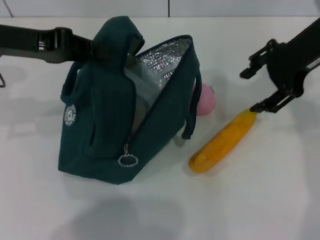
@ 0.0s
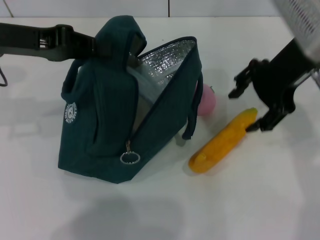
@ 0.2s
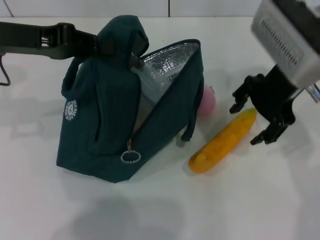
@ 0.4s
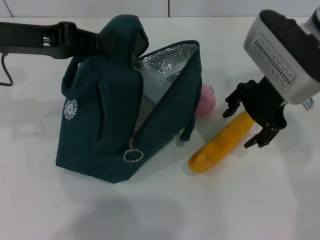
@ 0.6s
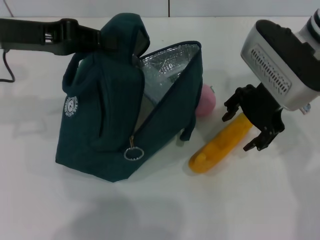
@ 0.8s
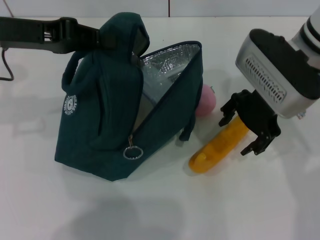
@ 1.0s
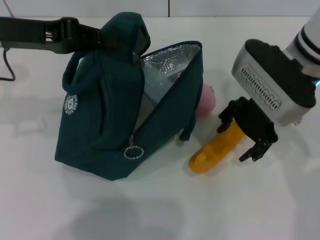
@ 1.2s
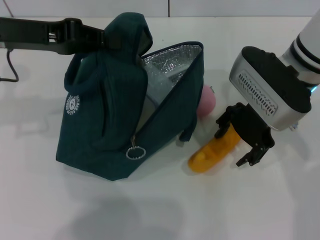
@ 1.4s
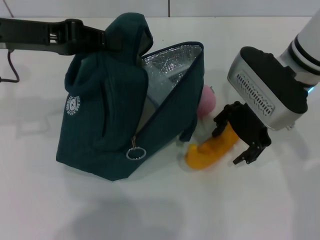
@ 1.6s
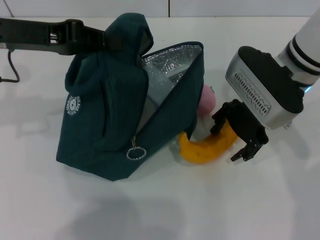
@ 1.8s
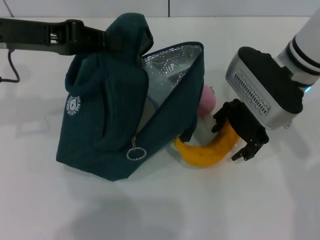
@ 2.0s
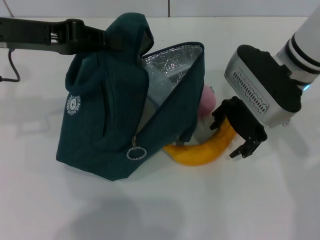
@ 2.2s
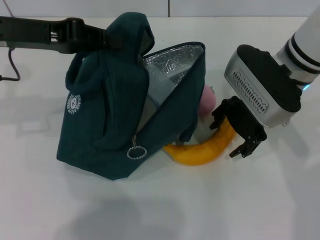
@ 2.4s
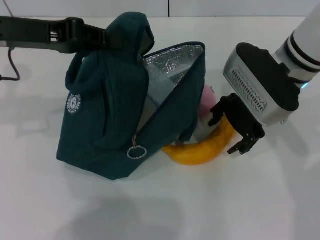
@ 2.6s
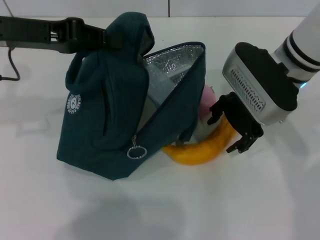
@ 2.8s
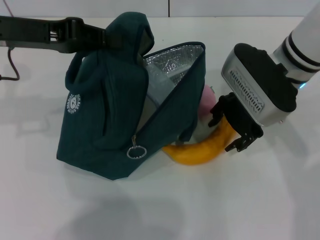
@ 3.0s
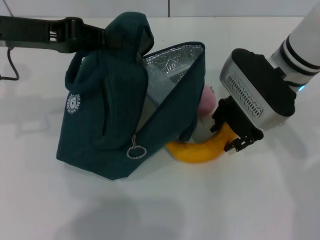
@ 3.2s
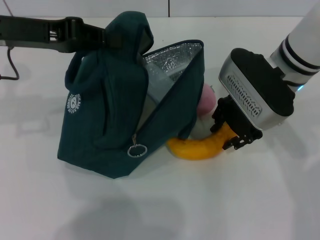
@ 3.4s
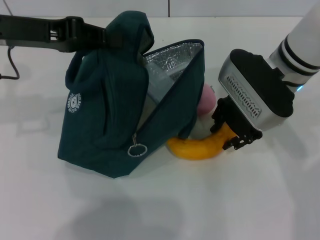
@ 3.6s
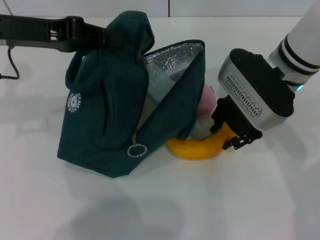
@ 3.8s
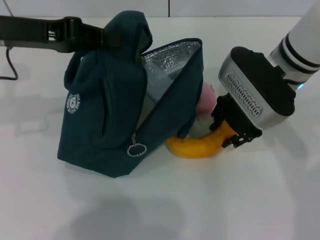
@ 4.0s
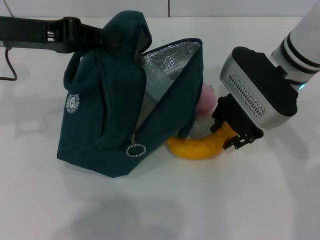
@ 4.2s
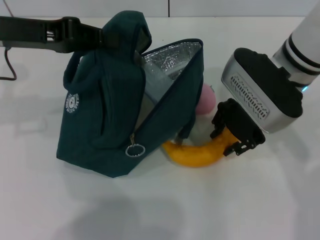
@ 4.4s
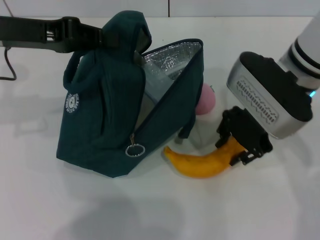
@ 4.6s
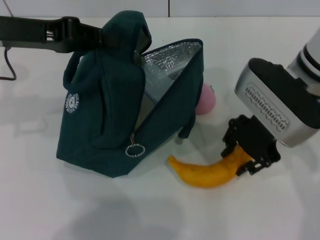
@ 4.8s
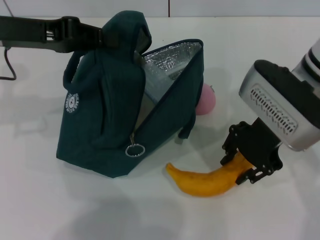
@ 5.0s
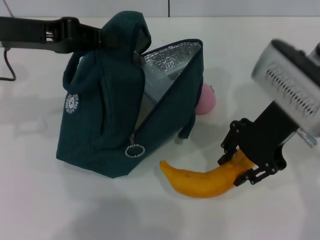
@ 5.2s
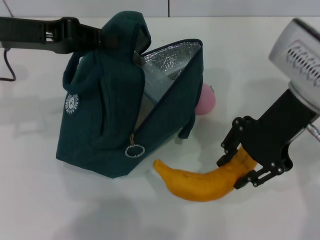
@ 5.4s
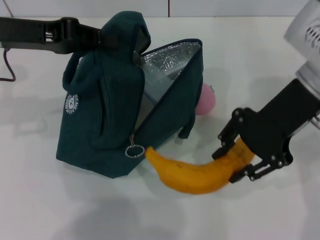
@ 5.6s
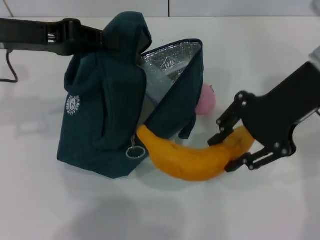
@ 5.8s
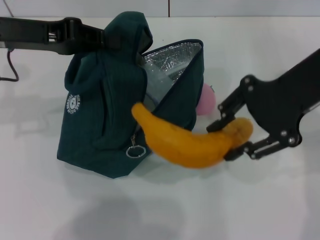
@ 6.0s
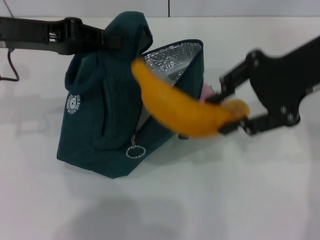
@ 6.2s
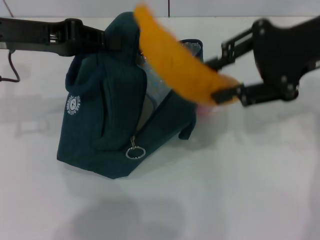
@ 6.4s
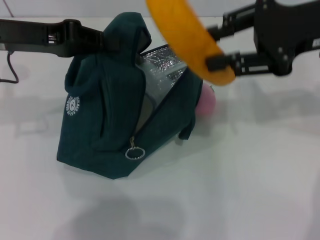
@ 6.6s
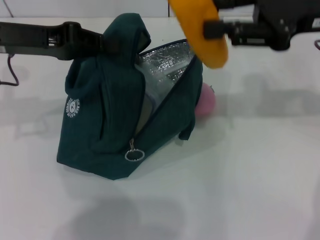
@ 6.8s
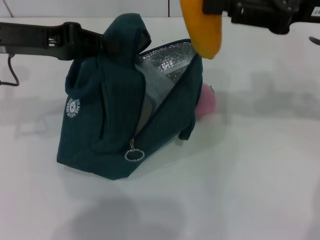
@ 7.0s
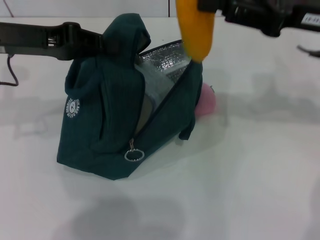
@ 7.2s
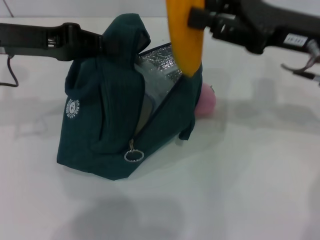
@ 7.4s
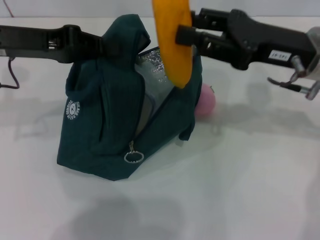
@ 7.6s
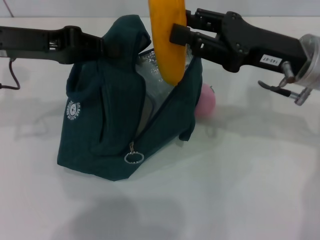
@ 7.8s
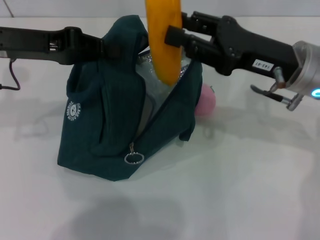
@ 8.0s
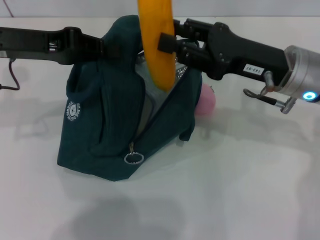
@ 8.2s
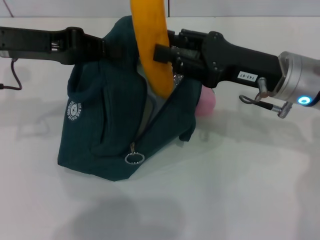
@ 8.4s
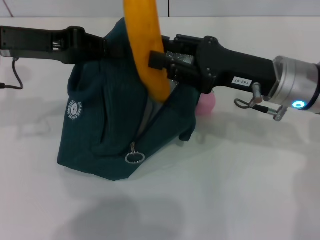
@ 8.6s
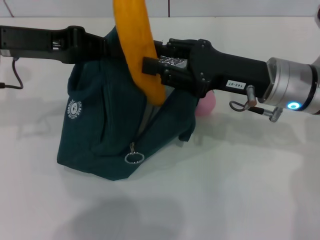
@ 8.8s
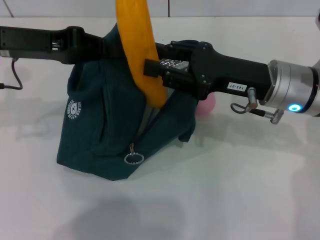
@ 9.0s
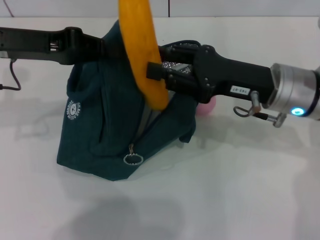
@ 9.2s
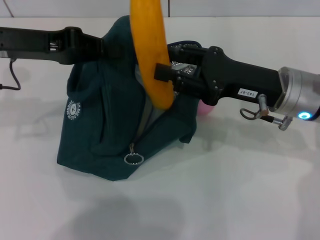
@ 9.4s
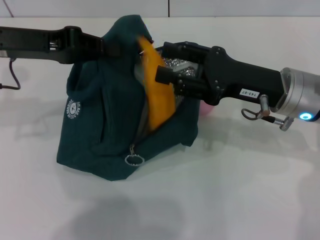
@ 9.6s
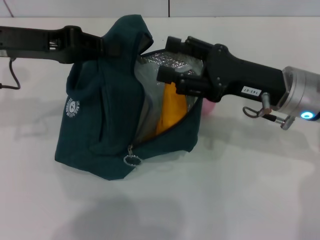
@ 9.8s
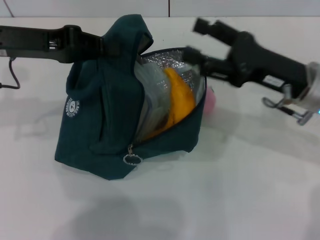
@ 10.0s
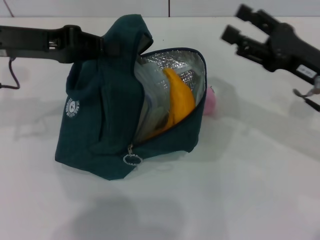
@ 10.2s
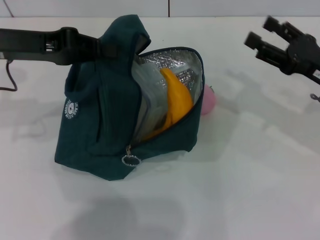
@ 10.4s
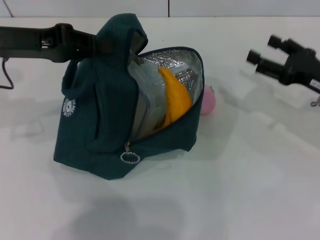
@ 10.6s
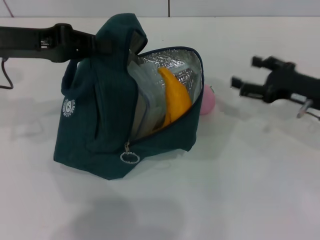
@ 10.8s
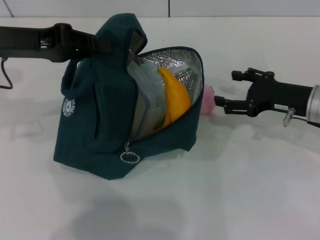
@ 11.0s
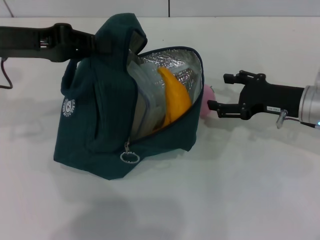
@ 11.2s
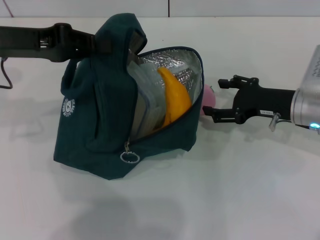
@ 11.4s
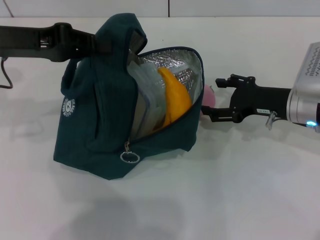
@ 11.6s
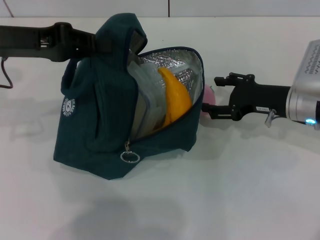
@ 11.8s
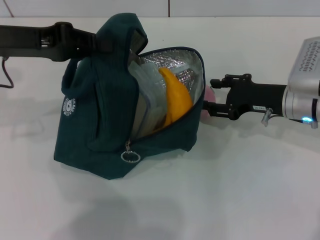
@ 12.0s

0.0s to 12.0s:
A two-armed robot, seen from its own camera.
Step, 0.0s to 3.8s: Take the banana with your right hand.
Step, 4.0s to 9.6s: Put the banana into the lunch bag with your right hand.
0.0s to 1.6s: The right gripper shifts some 10 cm downward and to the left.
1.6s to 3.0s: Neither gripper changes place.
3.0s to 4.4s: Neither gripper changes place.
4.4s to 6.0s: The right gripper heads upward and to the right, covering approximately 10 cm.
6.0s to 7.6s: The right gripper goes approximately 10 cm downward.
7.6s to 9.0s: The right gripper changes place by about 5 cm.
9.0s to 10.4s: The right gripper is displaced to the right by approximately 10 cm, and opens up.
10.4s to 12.0s: The right gripper is displaced to the left by about 5 cm.

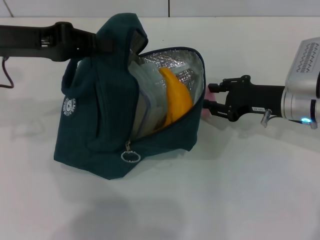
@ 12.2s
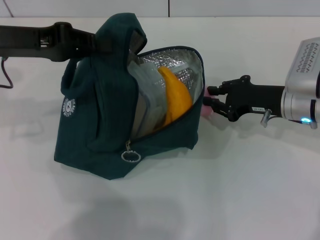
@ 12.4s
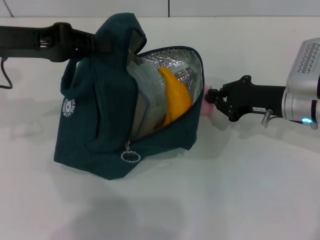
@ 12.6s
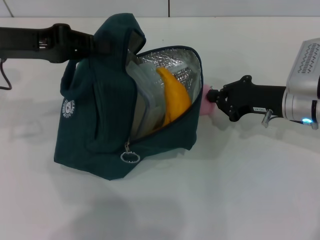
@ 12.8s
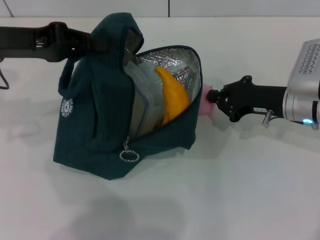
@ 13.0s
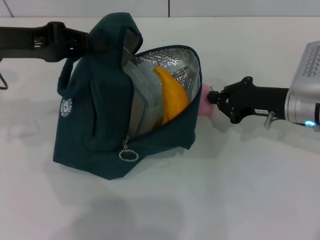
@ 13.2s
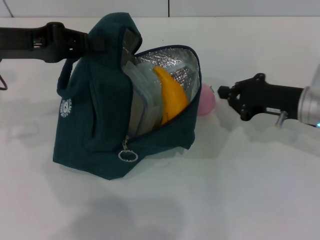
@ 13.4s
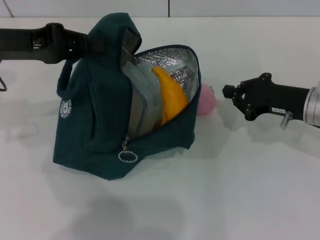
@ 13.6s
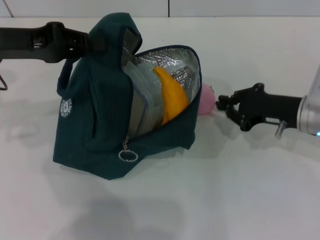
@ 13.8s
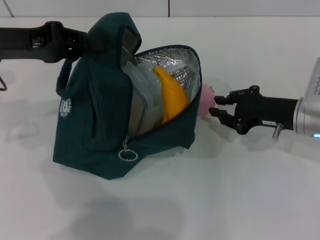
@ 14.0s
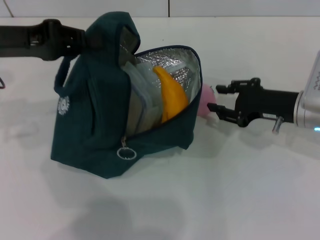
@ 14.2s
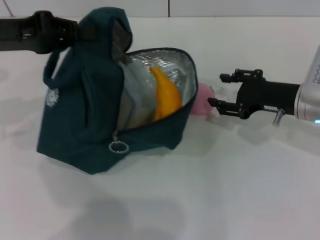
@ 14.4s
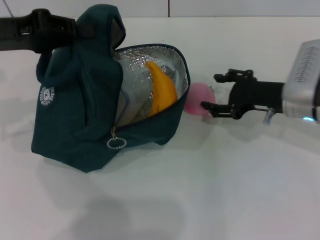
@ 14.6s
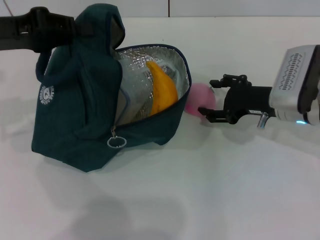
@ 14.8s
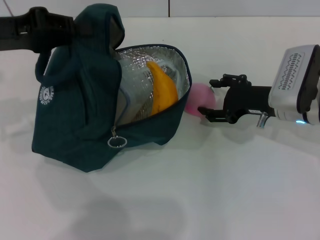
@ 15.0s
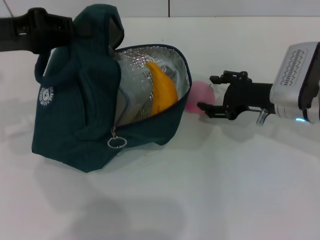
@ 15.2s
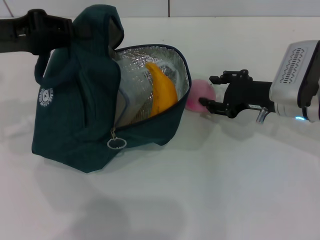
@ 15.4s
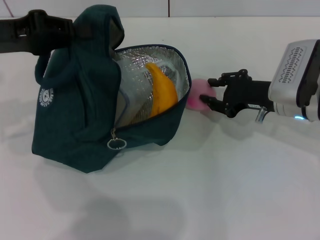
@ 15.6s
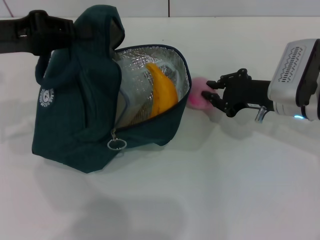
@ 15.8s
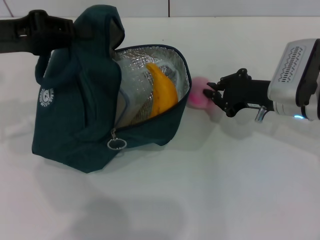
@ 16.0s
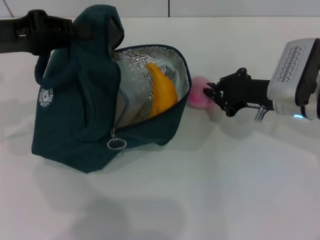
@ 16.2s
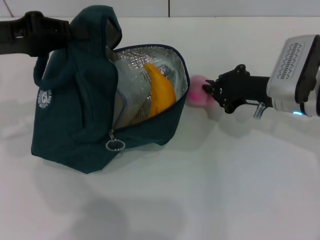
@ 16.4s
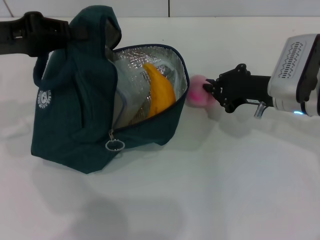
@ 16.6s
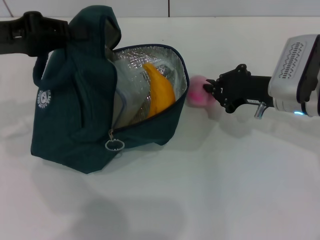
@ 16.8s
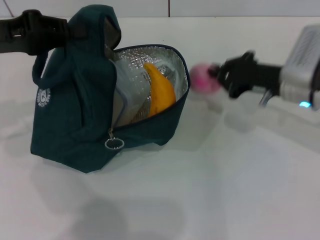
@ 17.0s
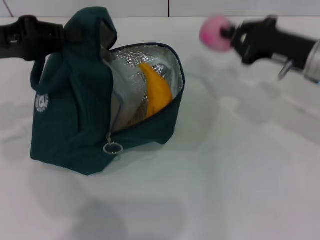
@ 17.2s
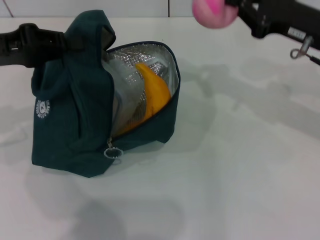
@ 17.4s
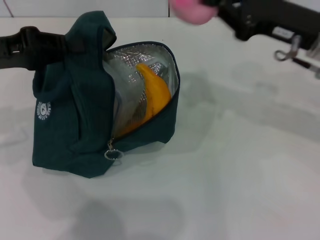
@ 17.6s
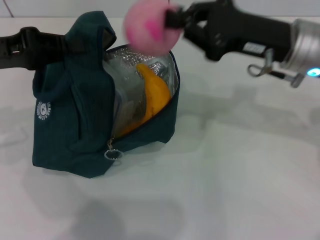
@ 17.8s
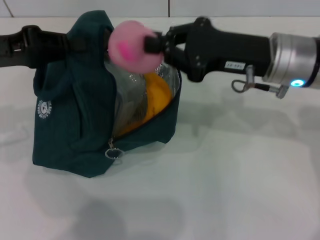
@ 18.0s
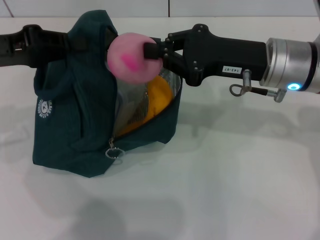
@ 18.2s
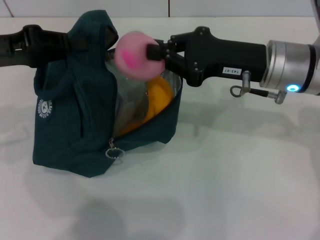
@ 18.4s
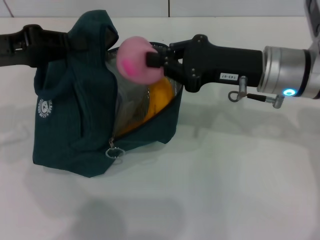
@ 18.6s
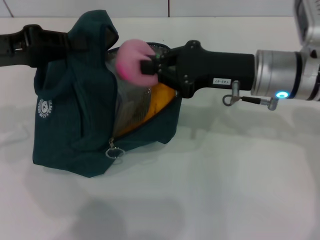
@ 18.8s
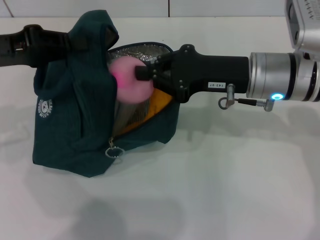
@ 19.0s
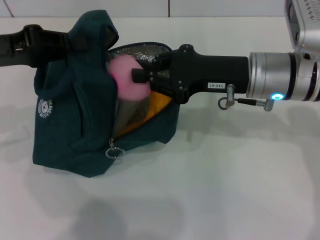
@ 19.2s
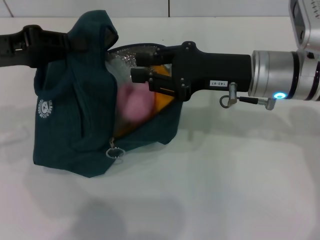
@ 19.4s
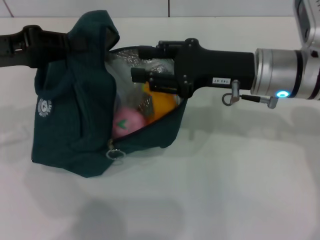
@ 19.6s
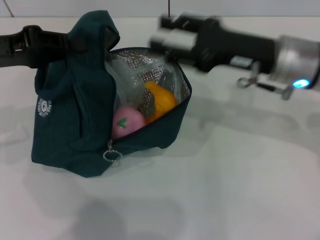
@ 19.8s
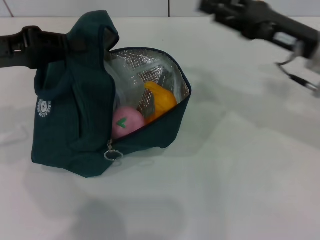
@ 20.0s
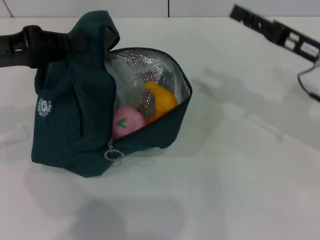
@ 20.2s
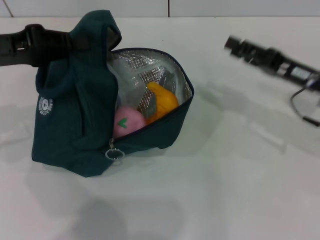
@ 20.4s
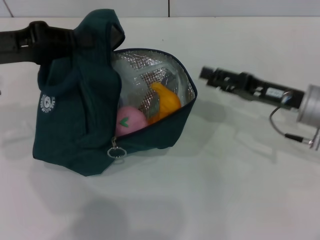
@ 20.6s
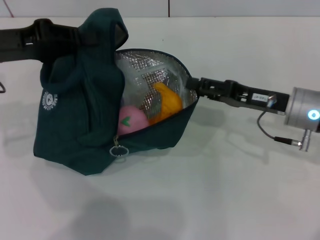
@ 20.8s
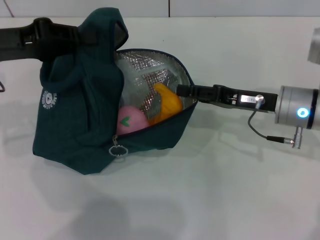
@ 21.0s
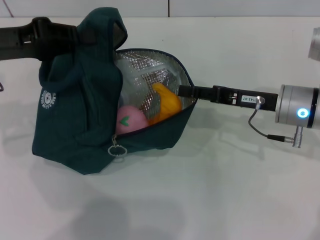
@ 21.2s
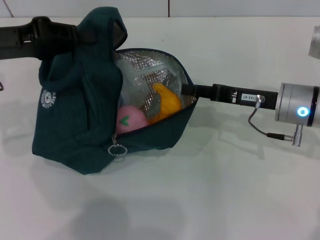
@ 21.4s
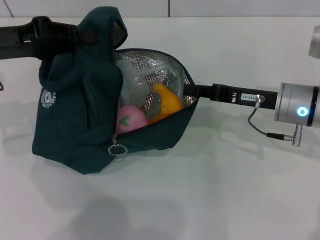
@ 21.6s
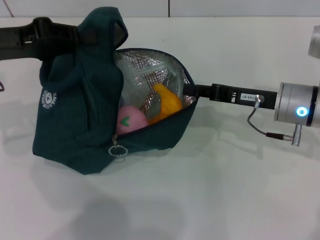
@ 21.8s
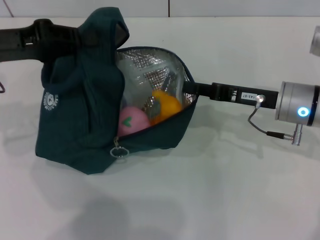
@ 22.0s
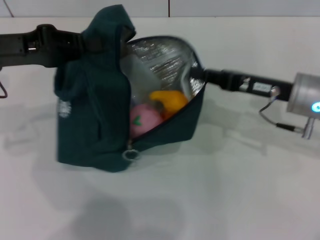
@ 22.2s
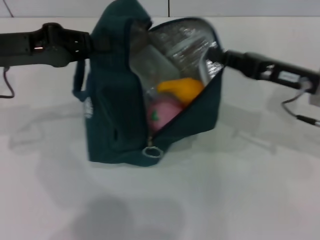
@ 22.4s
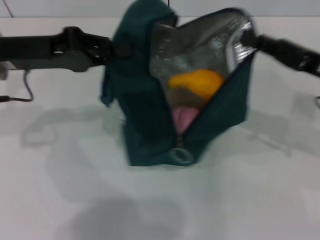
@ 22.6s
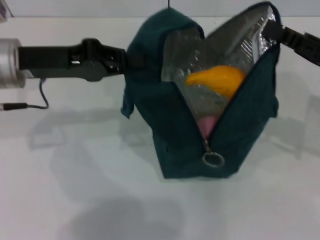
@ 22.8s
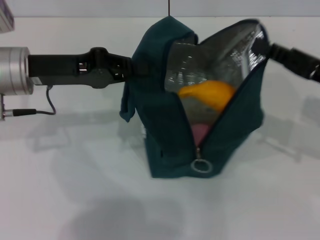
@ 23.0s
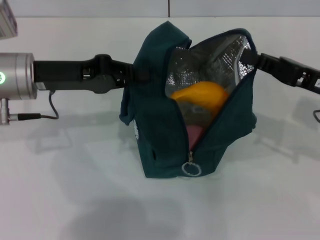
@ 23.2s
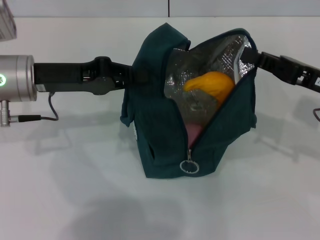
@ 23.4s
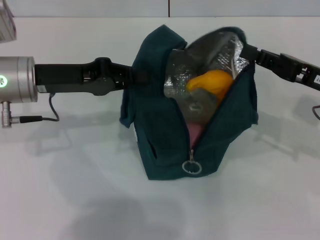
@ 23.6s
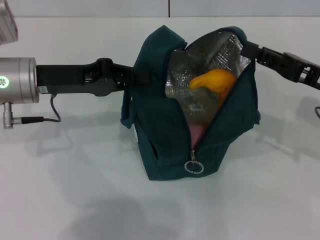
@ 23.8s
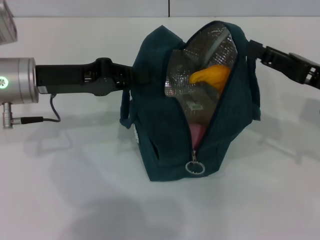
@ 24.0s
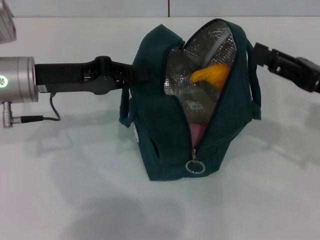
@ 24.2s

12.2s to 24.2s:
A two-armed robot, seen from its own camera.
Step, 12.2s to 16.4s: Grab the peach with your right hand.
Step, 20.0s to 24.0s: Hold the lunch bag with your right hand.
12.2s to 13.8s: The right gripper closes up.
13.8s to 15.2s: The right gripper opens.
15.2s to 16.6s: The right gripper closes up.
16.6s to 18.2s: The right gripper shifts some 10 cm upward.
18.2s to 19.8s: The right gripper opens.
19.8s to 21.2s: The right gripper travels downward by approximately 5 cm, and reaches approximately 10 cm to the right, then returns.
21.2s to 22.6s: The right gripper moves to the right and upward, some 10 cm, and closes its fingers.
22.6s to 24.2s: The right gripper opens up.
